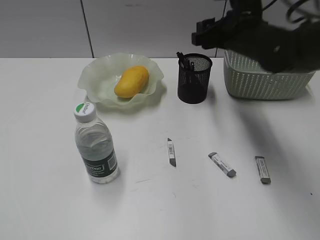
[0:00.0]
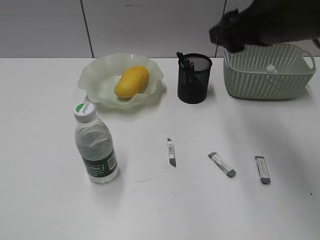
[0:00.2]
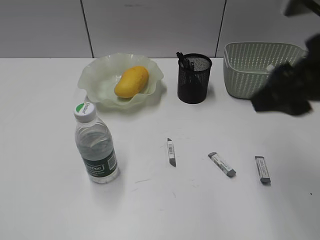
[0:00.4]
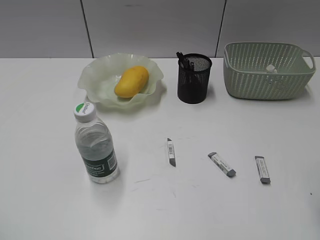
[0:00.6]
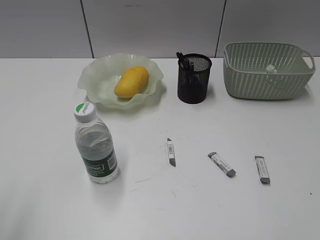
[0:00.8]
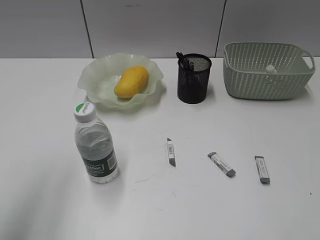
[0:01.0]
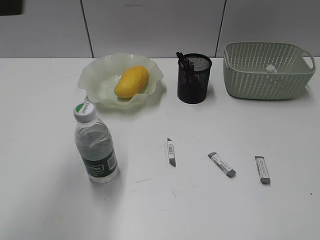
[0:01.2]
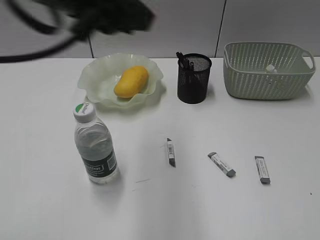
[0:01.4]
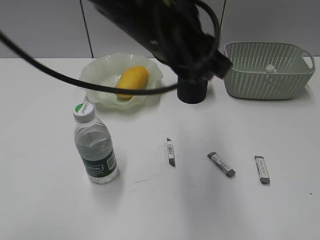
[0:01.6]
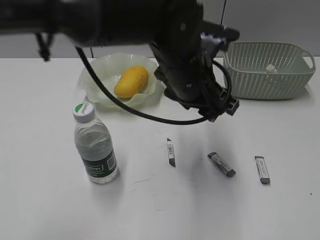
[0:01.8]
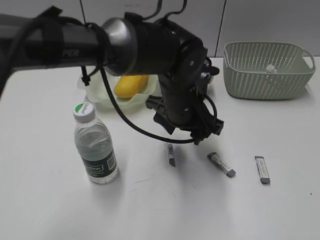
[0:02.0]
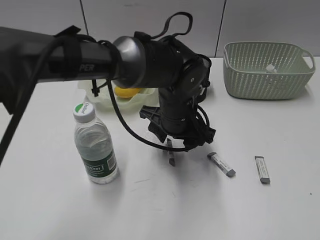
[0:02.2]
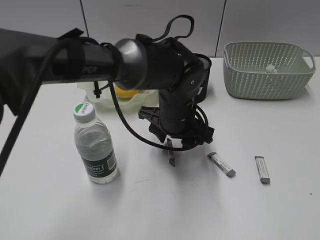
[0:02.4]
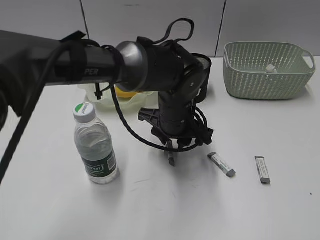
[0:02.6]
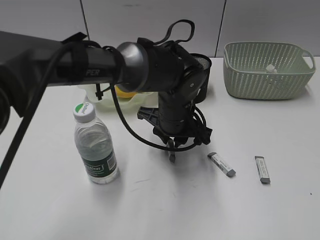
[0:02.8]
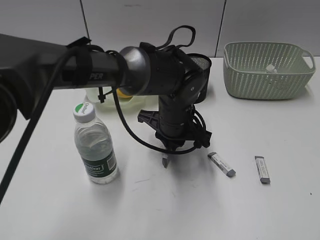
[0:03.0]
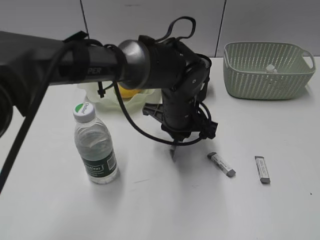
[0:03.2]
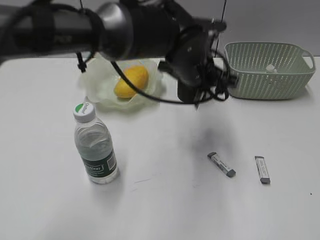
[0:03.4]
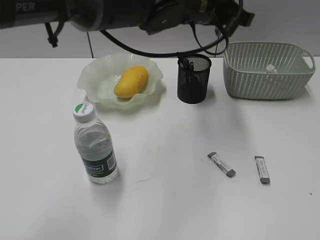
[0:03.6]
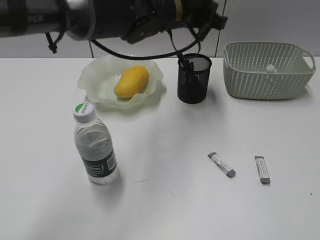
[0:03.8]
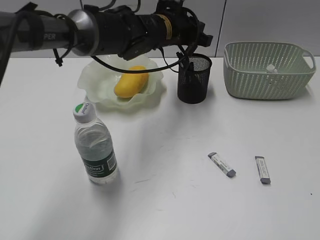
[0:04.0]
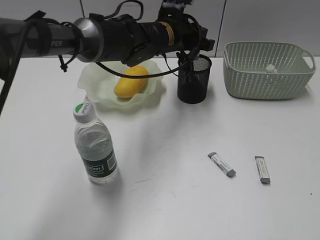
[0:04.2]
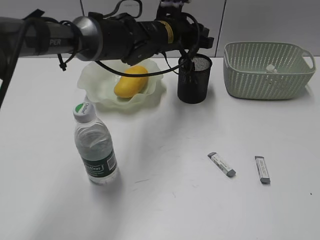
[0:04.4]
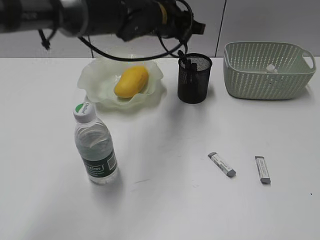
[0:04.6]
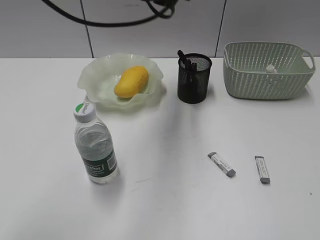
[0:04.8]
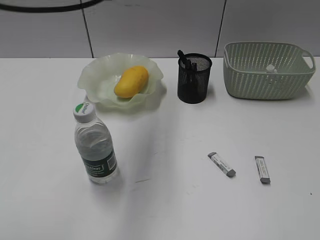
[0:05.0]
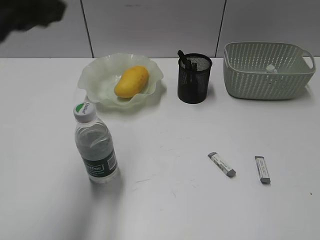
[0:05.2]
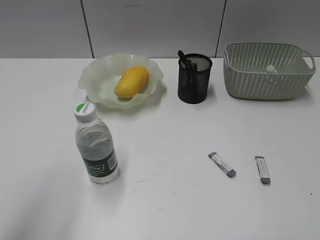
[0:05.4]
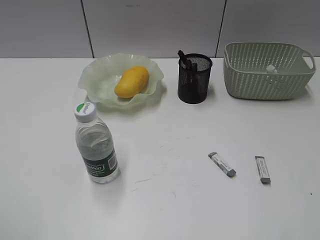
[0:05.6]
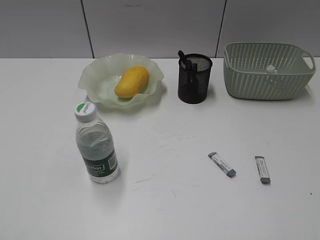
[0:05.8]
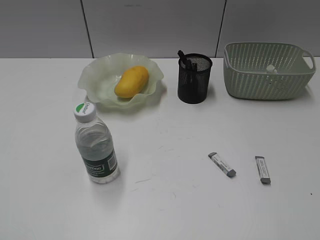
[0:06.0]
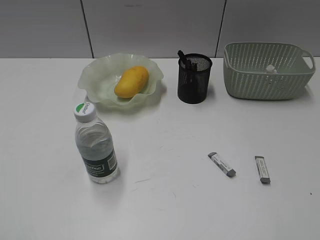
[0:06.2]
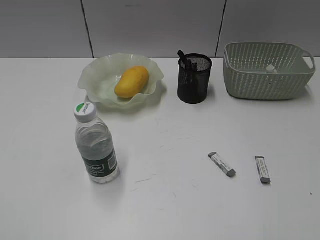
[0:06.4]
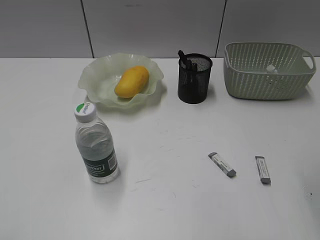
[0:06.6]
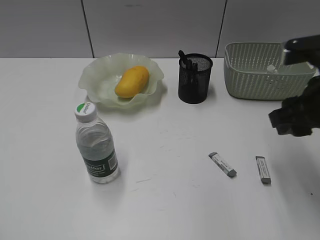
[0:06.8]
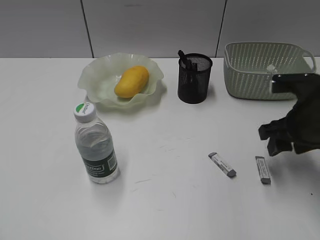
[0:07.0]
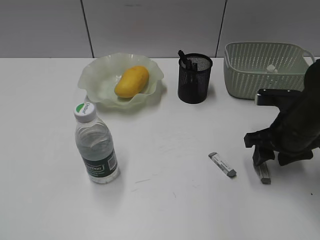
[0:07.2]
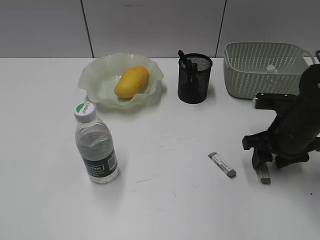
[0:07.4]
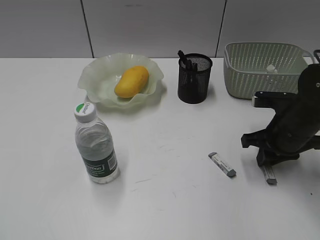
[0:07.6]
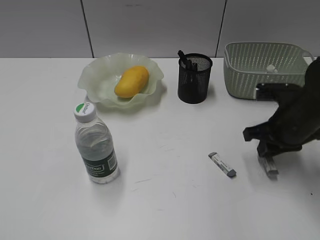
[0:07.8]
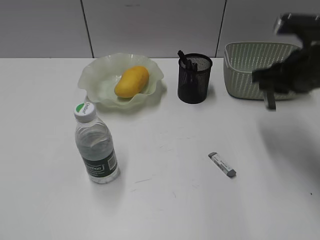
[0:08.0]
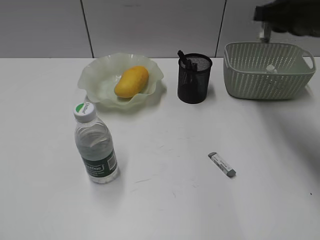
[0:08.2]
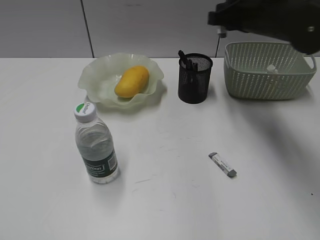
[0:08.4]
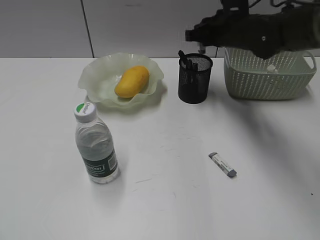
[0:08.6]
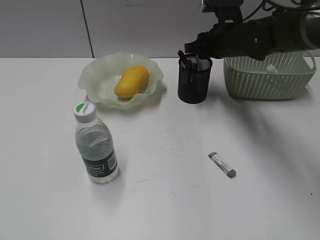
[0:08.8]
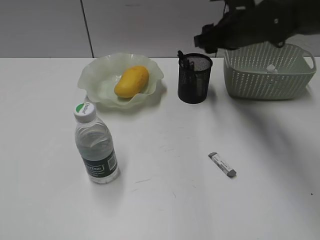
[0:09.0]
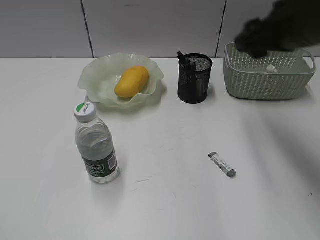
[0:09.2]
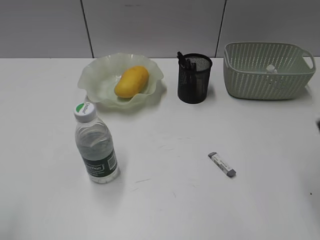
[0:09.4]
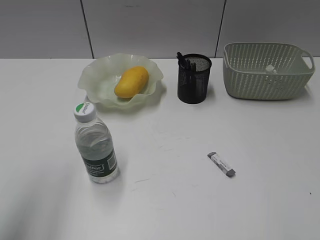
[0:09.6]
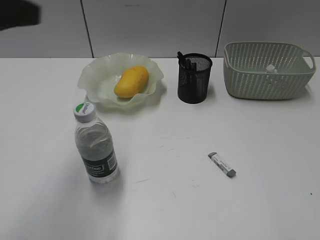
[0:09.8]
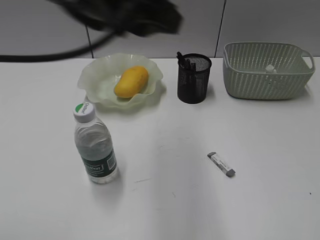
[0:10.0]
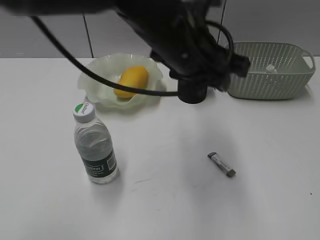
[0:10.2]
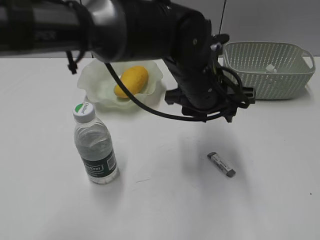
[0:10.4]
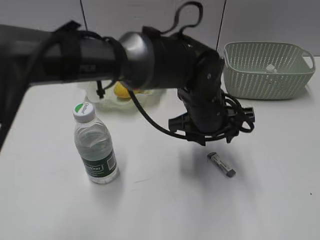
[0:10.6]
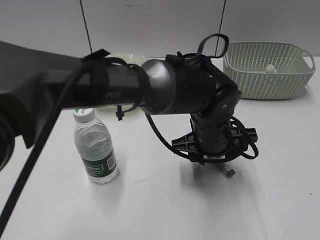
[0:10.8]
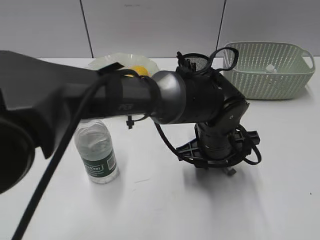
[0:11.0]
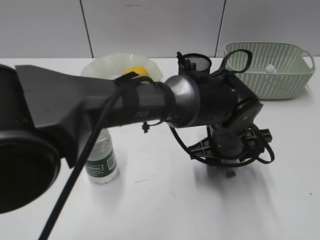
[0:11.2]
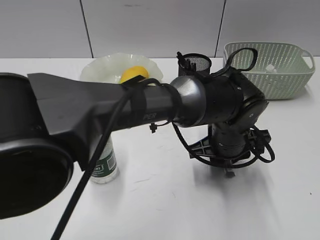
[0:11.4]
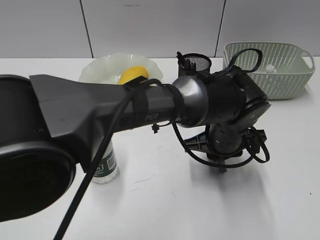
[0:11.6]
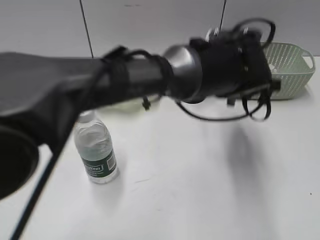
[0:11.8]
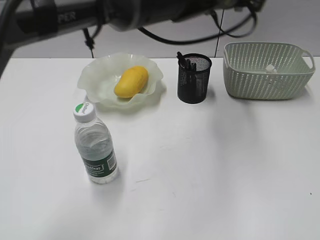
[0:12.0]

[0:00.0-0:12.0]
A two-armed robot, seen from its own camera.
Step, 0:00.0 to 0:03.0: Grasp the eraser with left gripper.
Step, 0:03.2 to 0:04.4: Place the eraser in pen holder with left gripper.
Step, 0:04.6 to 0:07.6: Grasp the eraser with right gripper.
Step, 0:07.8 to 0:08.8: Place the eraser in pen holder with right gripper.
Step, 0:09.0 to 0:11.4: Grasp the eraser with left gripper.
0:00.0 to 0:01.6: The right gripper moves backward and to the right, roughly 40 cm, while the left gripper shifts roughly 40 cm to the right and forward.
0:01.6 to 0:03.0: The left gripper shifts some 20 cm downward, and closes up.
0:03.0 to 0:04.4: The left gripper is displaced forward and upward by about 15 cm, and opens.
0:04.4 to 0:06.0: The left gripper travels backward and to the left by some 60 cm, and opens its fingers.
0:06.0 to 0:07.6: The right gripper travels forward and downward by about 35 cm.
0:07.6 to 0:09.0: The right gripper goes some 20 cm forward, upward and to the left, and opens up.
0:09.0 to 0:10.4: The right gripper shifts approximately 40 cm backward, while the left gripper shifts some 50 cm to the right and forward.
0:10.4 to 0:12.0: The left gripper is displaced upward and forward by approximately 10 cm, and closes up.

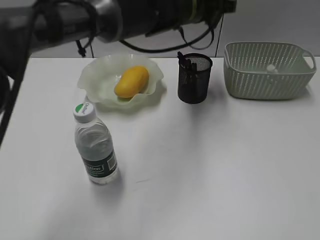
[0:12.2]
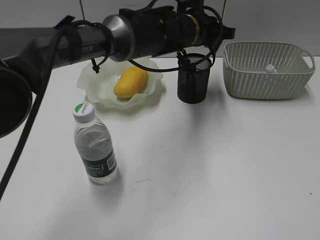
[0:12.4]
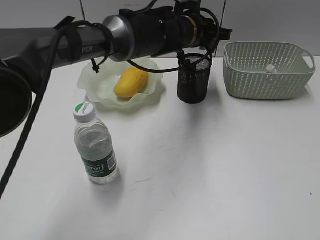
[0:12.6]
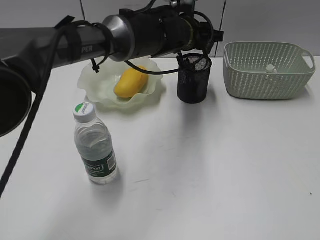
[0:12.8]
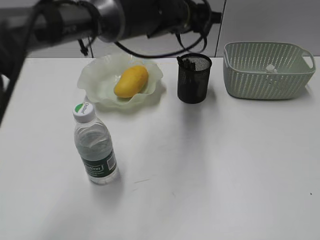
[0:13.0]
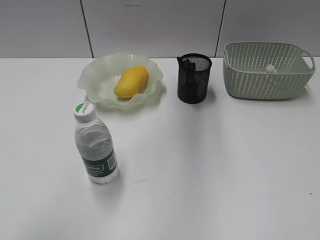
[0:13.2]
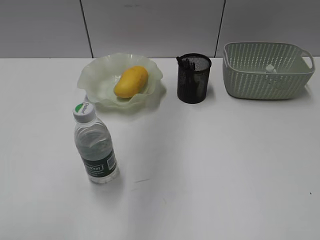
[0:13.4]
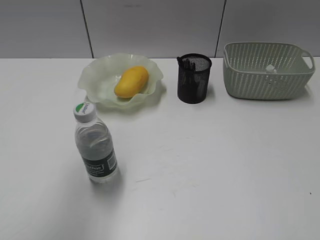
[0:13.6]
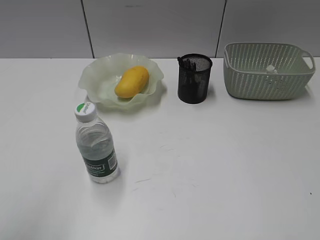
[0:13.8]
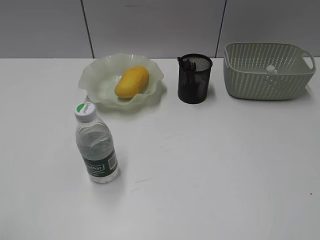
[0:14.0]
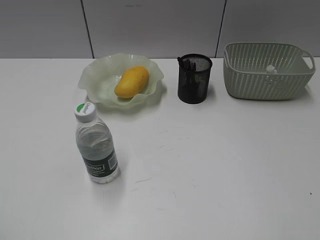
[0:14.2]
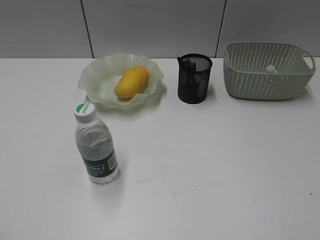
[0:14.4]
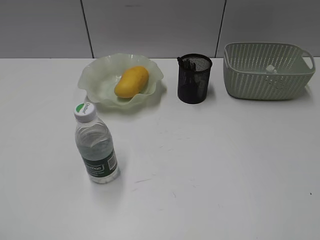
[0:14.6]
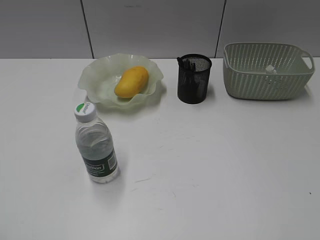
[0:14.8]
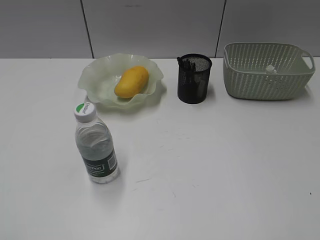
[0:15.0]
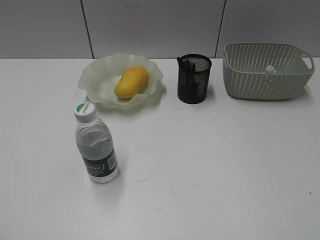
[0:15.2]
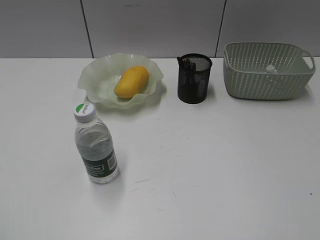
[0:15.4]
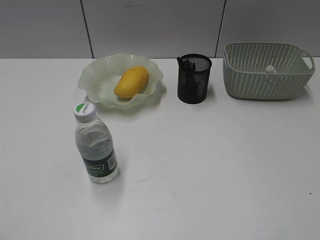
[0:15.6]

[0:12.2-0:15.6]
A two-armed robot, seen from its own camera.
0:12.2 to 0:13.8: The left gripper goes some 50 cm backward and to the left, and opens up.

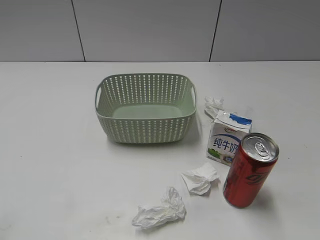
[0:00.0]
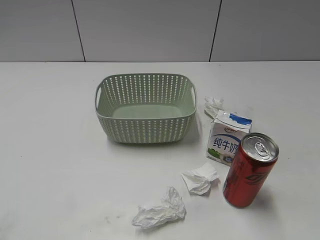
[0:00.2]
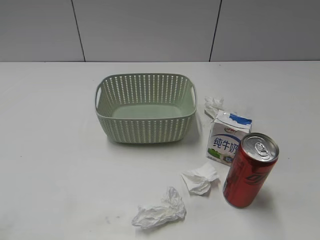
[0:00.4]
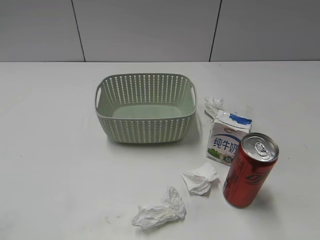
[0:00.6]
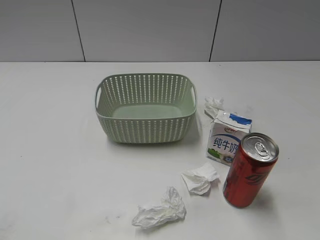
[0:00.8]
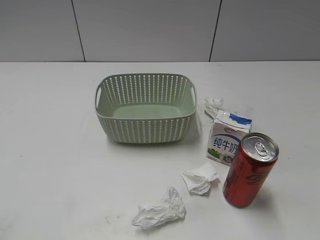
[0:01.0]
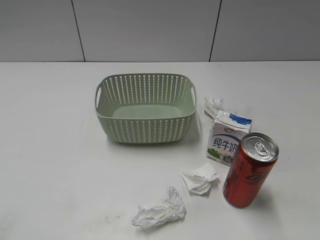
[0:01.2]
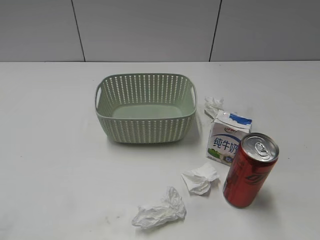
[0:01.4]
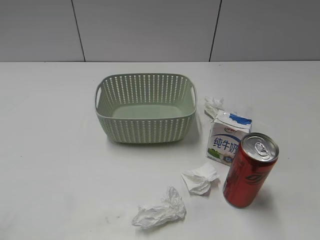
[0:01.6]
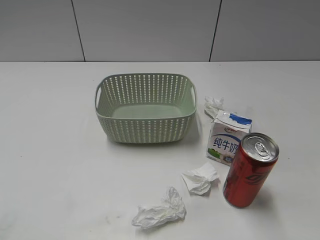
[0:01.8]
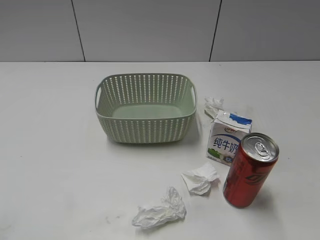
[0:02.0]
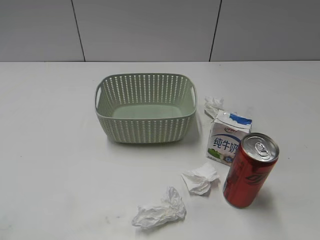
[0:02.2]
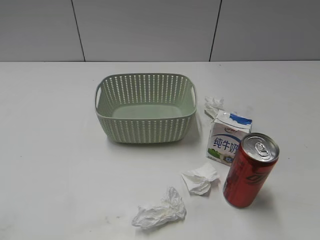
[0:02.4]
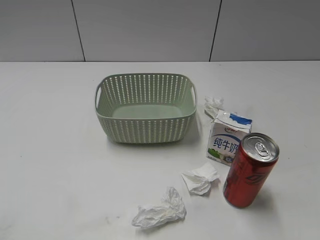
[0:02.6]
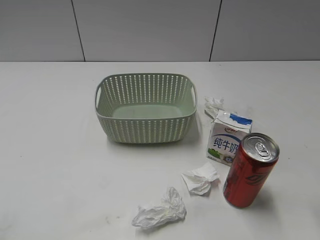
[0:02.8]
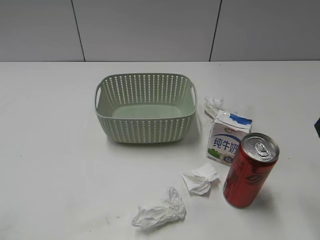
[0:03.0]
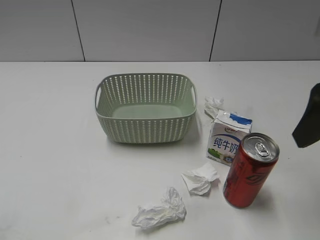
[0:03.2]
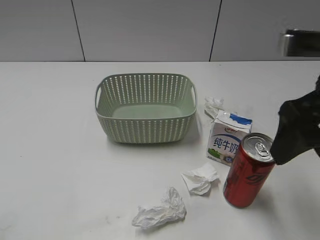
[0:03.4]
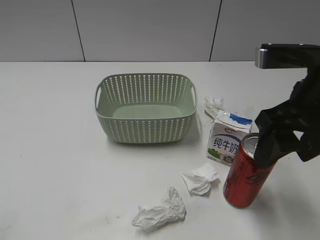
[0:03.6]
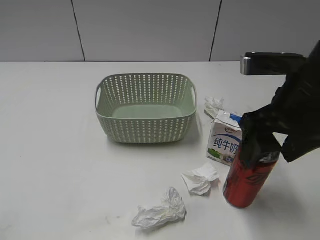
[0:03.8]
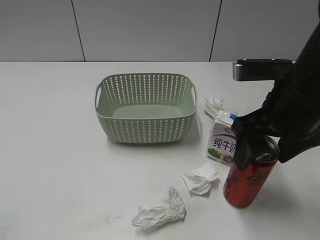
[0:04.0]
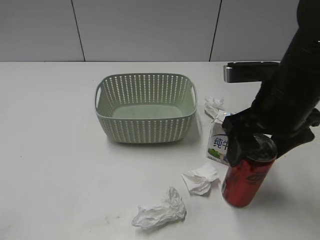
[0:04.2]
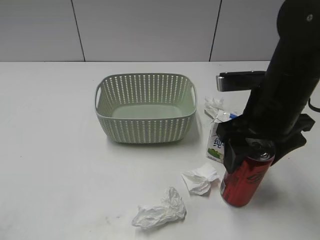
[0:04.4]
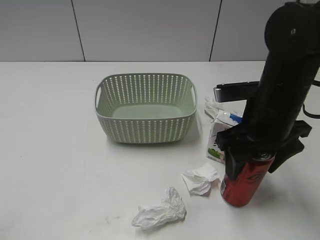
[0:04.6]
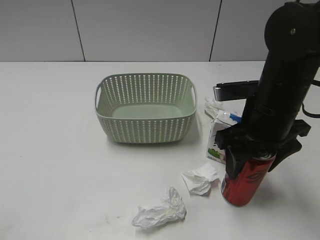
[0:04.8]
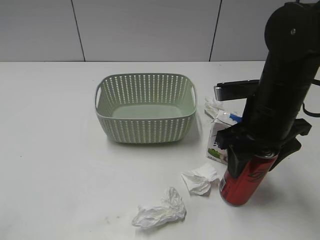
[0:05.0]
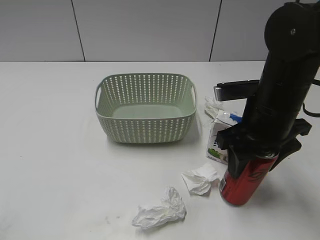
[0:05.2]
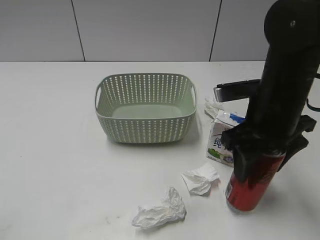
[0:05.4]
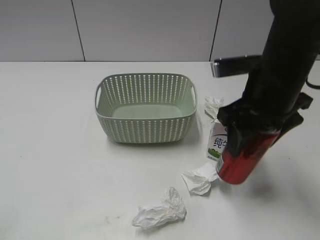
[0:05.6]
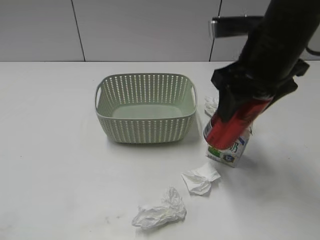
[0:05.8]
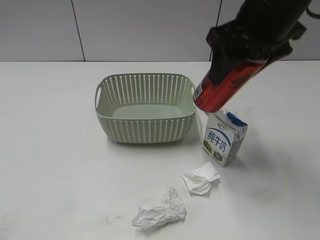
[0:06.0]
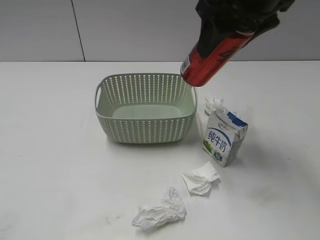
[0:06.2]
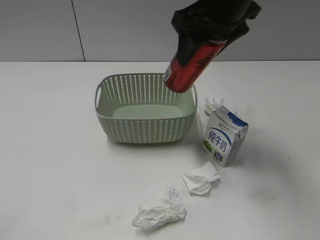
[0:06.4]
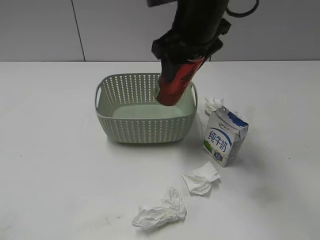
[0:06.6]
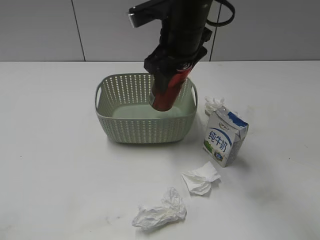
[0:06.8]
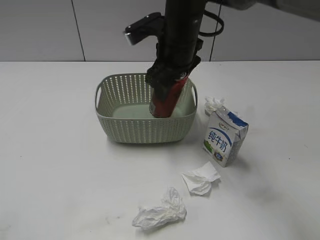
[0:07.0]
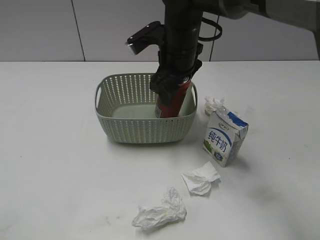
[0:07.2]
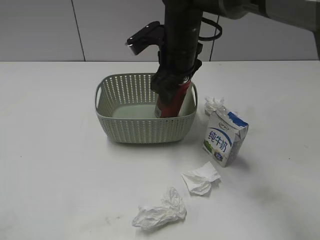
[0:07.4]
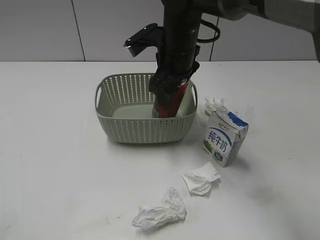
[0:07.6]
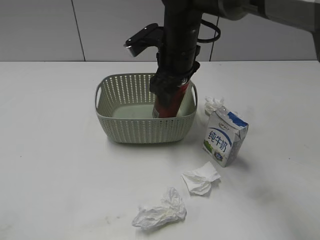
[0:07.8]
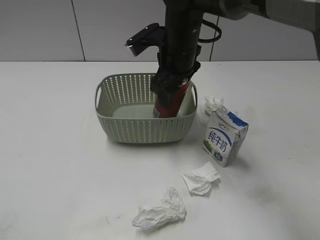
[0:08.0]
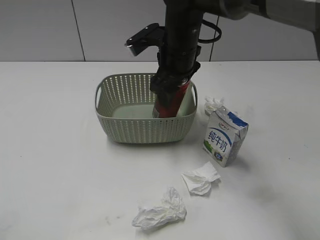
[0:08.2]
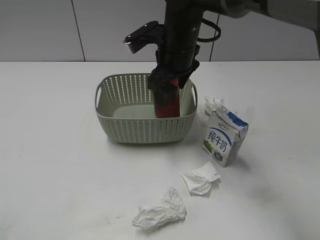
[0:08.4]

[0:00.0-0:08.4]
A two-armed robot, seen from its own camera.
Step, 0:03.0 to 0:04.8: Grasp the cola can with right gripper.
0:02.8 to 0:04.2: The right gripper shifts roughly 15 cm to the left, downward and forward, and opens its fingers.
0:04.2 to 0:05.6: The right gripper closes up.
0:05.6 to 0:07.0: The right gripper shifts approximately 15 cm to the left and forward.
0:07.0 to 0:08.4: The right gripper opens up.
